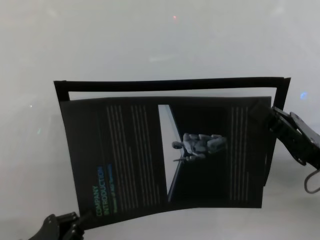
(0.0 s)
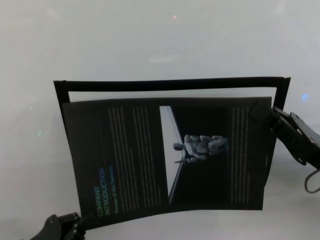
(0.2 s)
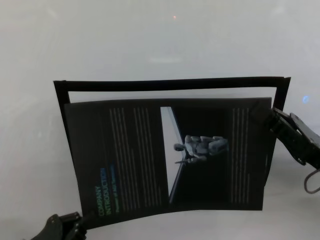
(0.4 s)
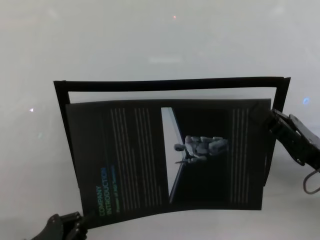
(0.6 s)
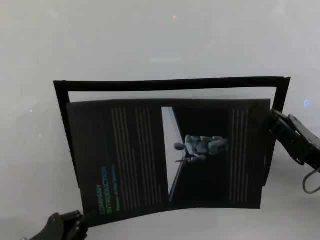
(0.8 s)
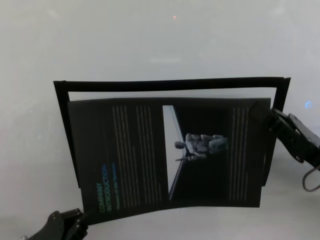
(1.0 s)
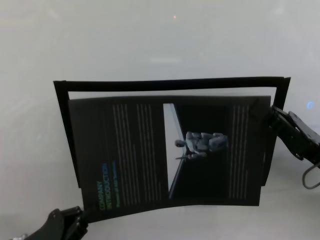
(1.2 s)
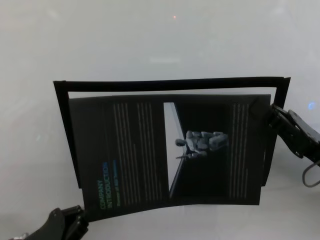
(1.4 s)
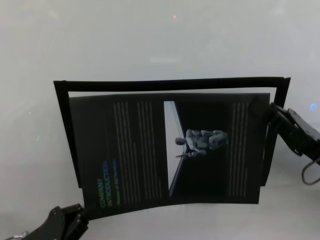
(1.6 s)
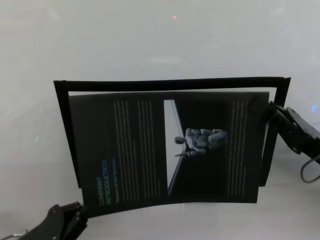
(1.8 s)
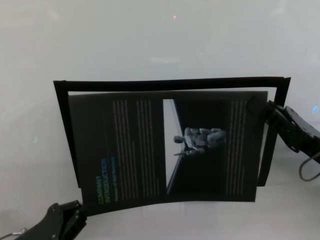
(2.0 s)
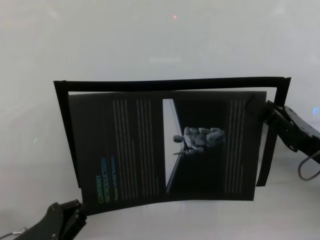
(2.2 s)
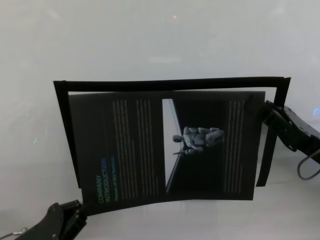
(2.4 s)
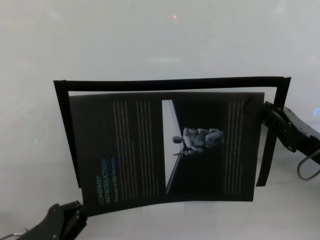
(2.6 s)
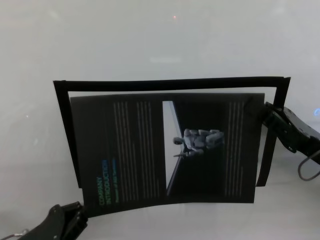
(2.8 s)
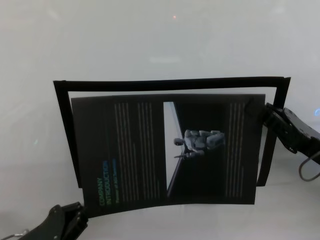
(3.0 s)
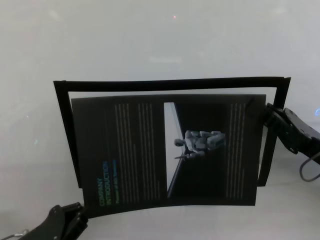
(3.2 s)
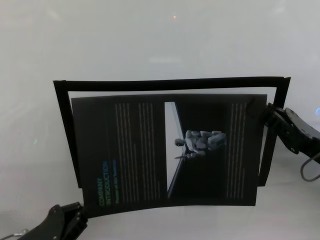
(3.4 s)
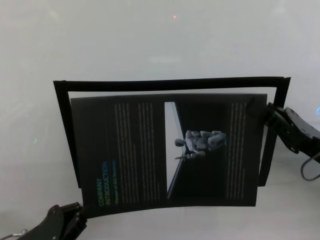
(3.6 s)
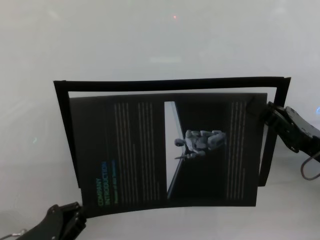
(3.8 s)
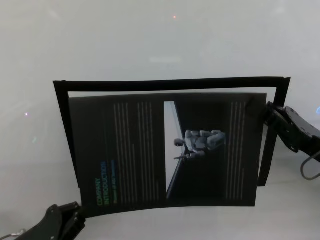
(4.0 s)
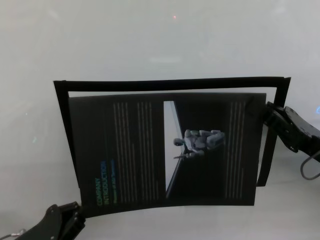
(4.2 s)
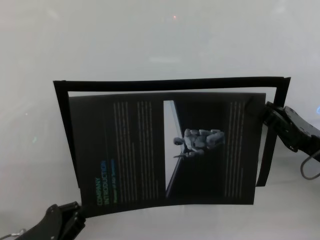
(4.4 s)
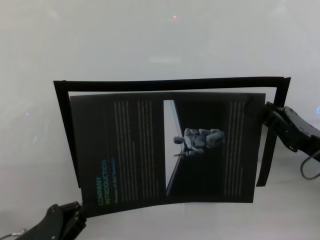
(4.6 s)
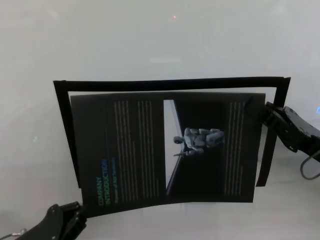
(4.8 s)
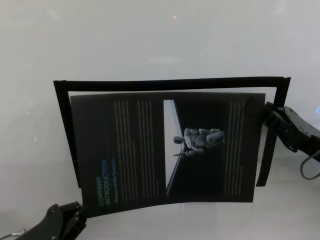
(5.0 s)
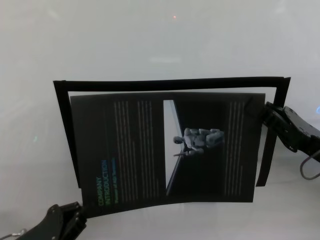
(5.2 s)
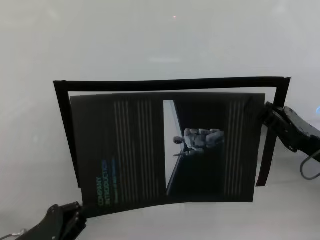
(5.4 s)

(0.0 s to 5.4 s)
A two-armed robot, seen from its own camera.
Task of the whole recording: stick the poster on the table by hand.
Step, 0.0 s - 3.2 s: Stick the advertisement in the top-right corner area with both grippers.

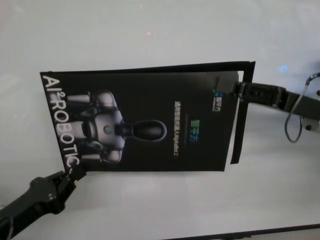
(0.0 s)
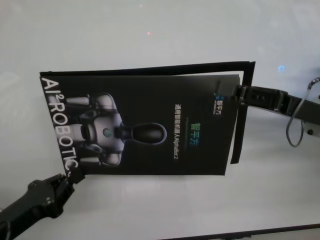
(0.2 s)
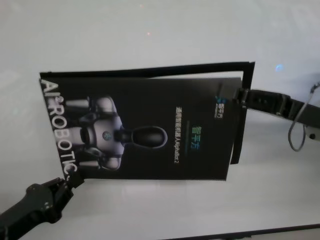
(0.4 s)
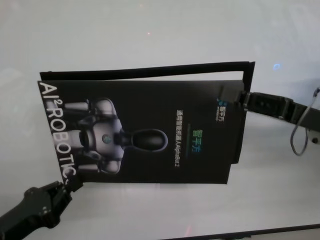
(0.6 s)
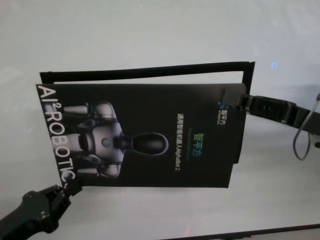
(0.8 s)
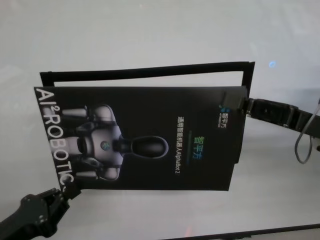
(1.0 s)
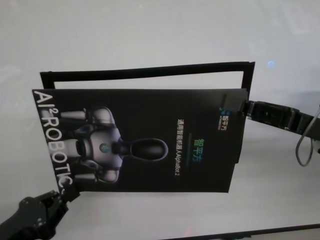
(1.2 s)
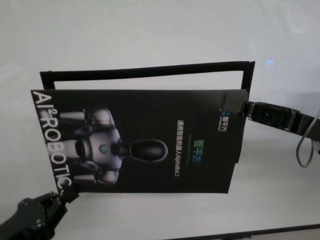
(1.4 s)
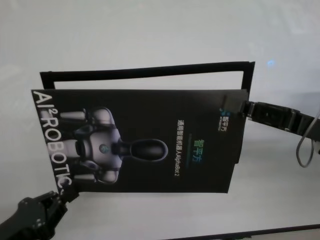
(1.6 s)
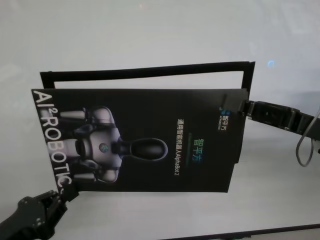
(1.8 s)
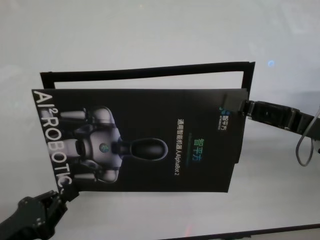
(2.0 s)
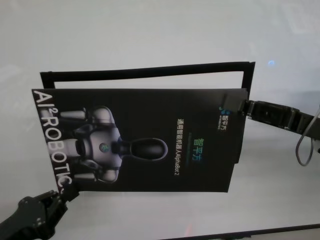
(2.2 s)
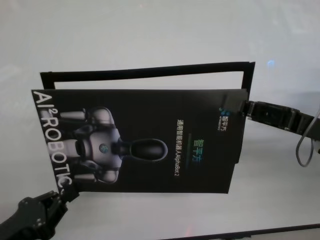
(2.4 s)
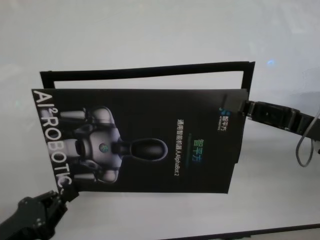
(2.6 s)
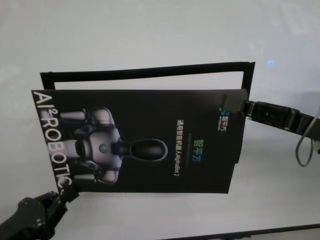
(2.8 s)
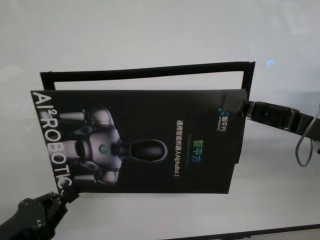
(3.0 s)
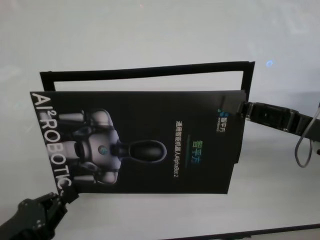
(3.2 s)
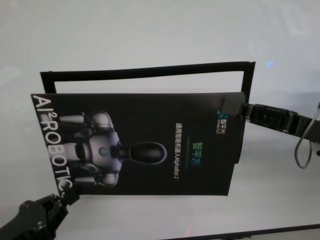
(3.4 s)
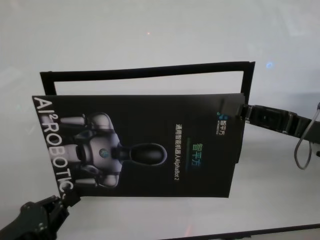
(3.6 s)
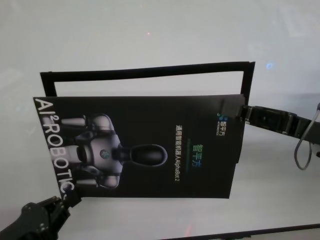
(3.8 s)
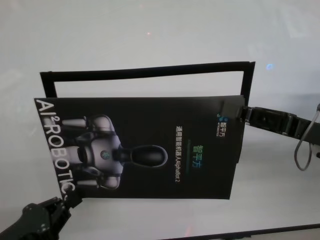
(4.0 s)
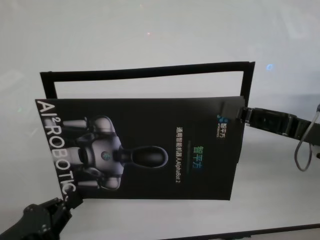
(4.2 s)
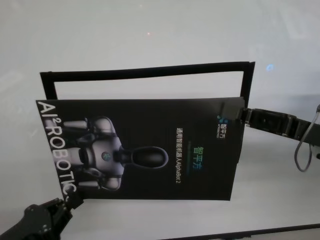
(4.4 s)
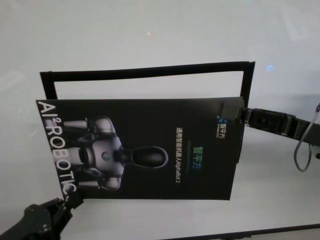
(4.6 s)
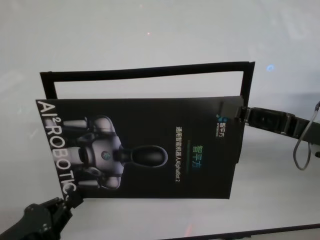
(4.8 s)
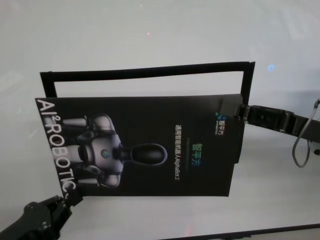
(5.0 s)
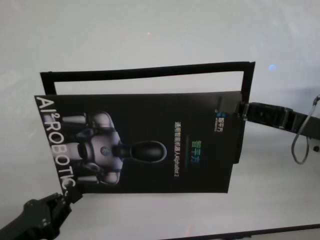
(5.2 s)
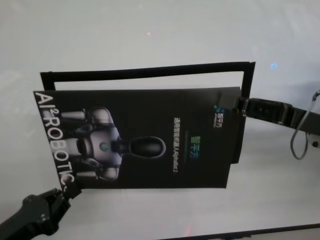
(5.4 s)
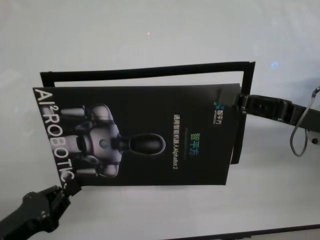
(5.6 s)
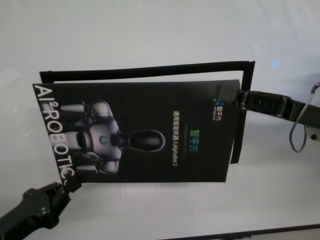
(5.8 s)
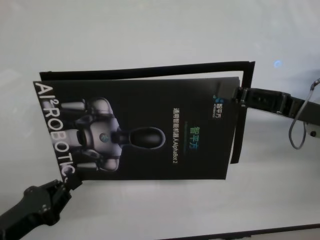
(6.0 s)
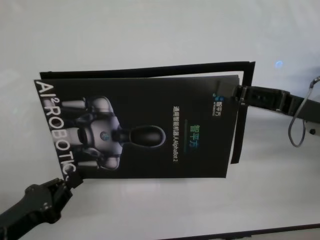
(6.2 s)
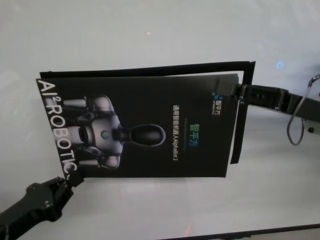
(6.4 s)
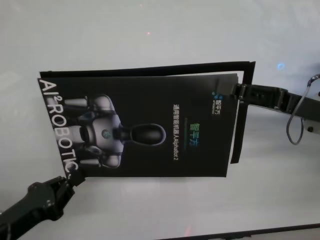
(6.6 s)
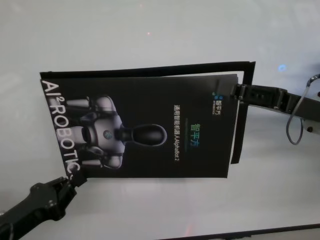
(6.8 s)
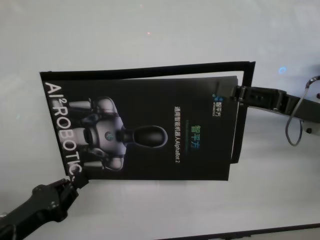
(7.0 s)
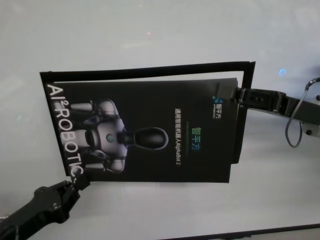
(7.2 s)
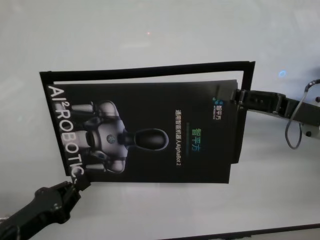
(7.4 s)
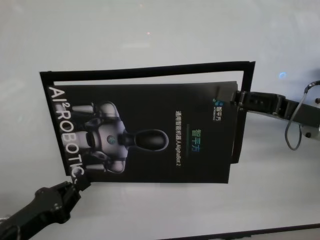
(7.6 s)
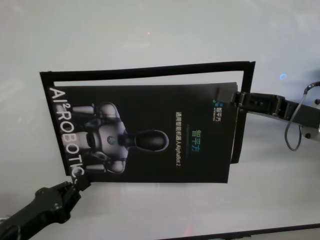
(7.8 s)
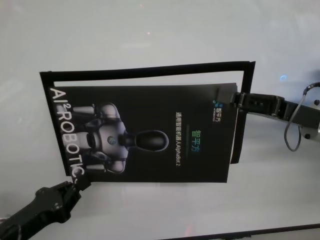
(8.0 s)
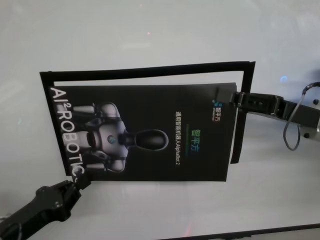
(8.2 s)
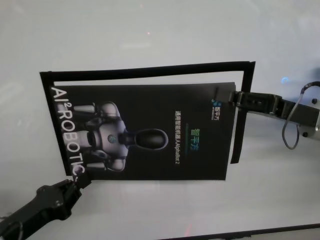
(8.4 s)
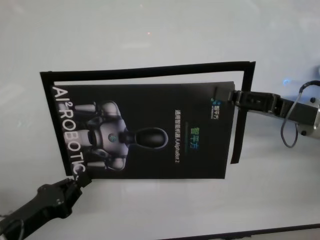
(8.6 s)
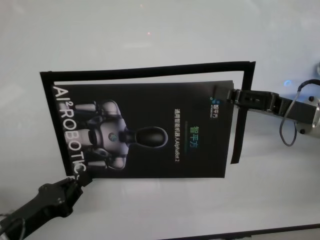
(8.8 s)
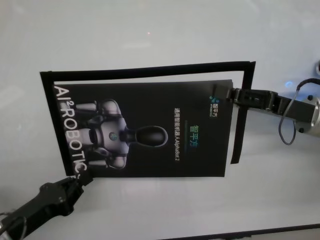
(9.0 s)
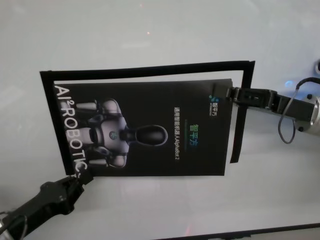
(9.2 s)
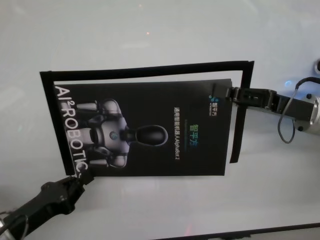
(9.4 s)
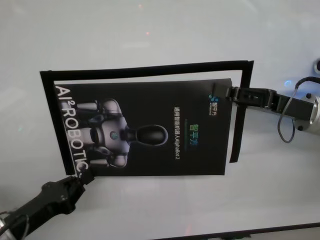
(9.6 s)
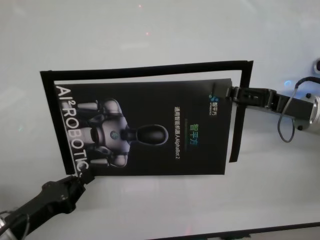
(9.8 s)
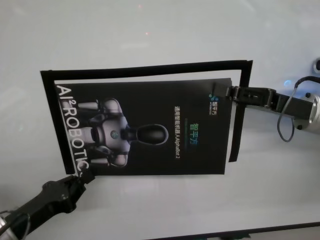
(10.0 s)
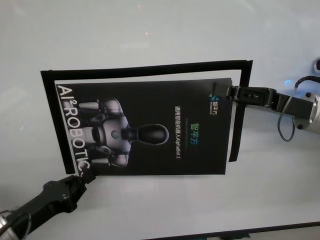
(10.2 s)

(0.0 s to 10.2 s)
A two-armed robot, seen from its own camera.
Task of the whole recording: stick the poster on the table by hand.
Step, 0.0 s - 9.4 s: Stick the advertisement in the top-right corner area with both grippers.
